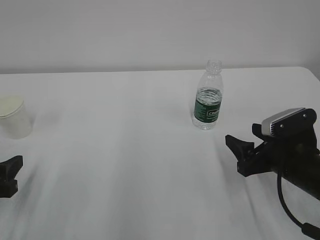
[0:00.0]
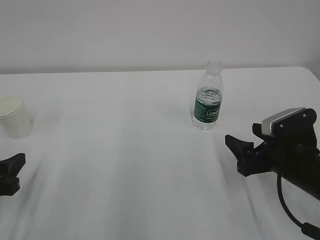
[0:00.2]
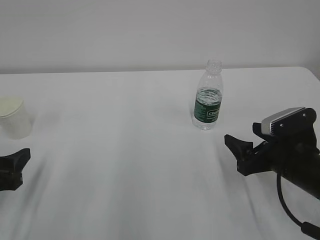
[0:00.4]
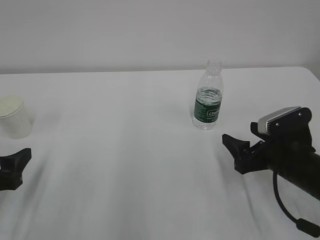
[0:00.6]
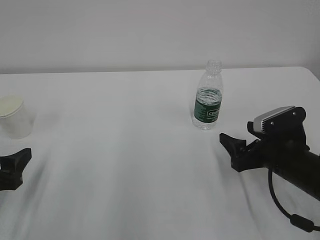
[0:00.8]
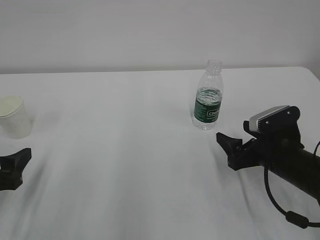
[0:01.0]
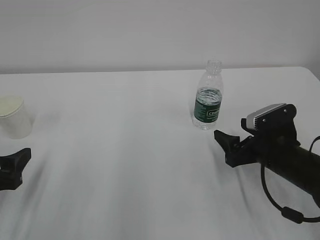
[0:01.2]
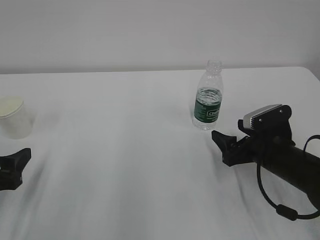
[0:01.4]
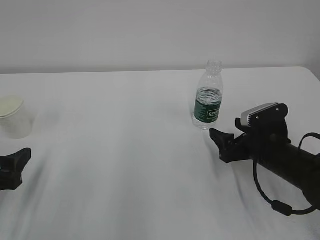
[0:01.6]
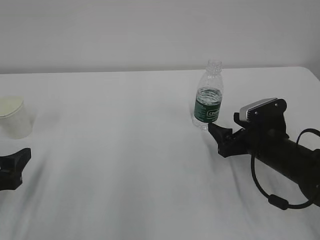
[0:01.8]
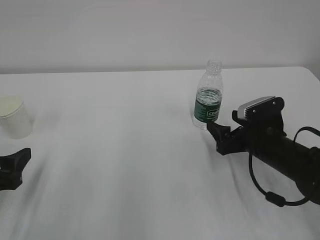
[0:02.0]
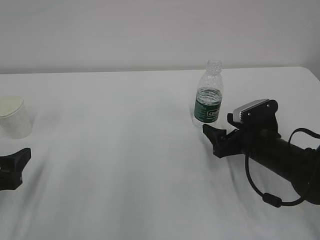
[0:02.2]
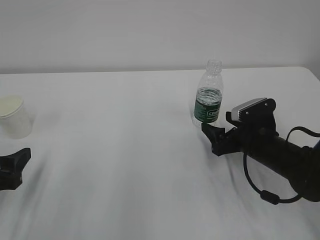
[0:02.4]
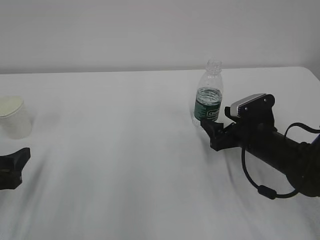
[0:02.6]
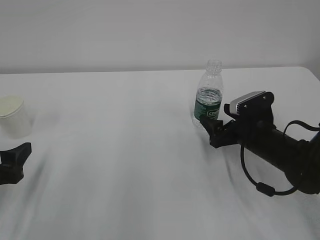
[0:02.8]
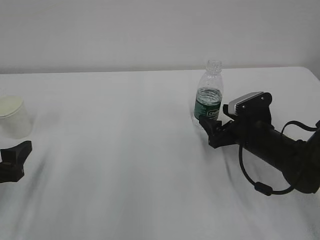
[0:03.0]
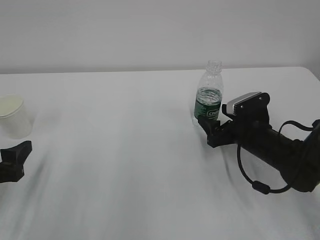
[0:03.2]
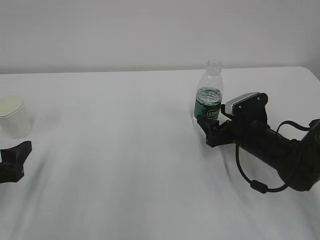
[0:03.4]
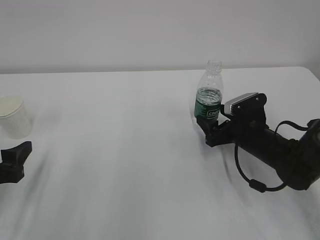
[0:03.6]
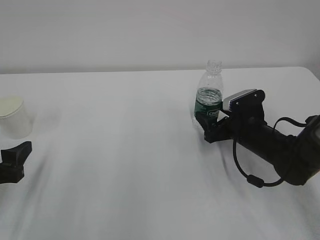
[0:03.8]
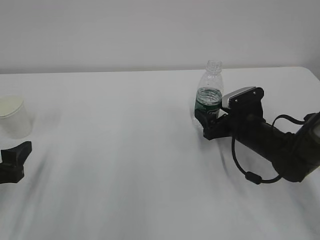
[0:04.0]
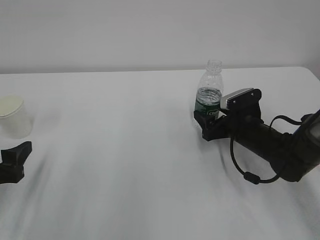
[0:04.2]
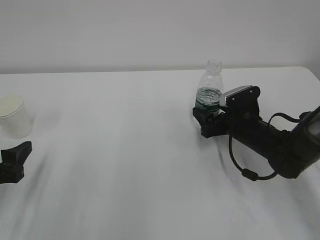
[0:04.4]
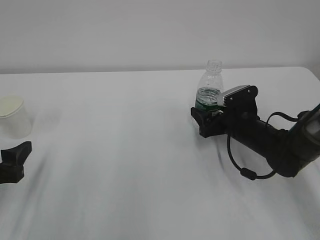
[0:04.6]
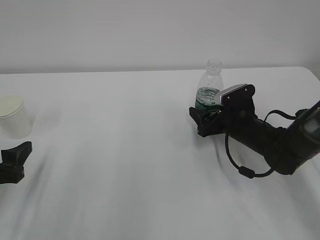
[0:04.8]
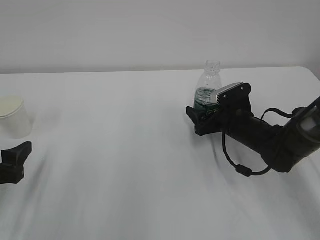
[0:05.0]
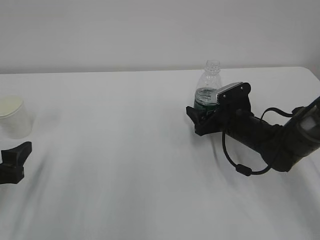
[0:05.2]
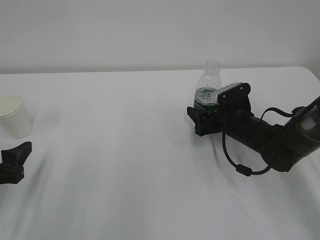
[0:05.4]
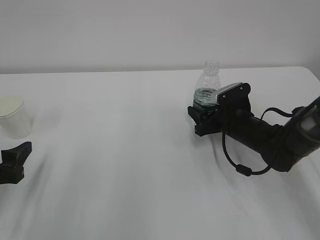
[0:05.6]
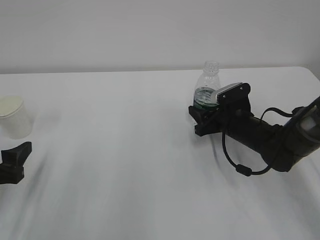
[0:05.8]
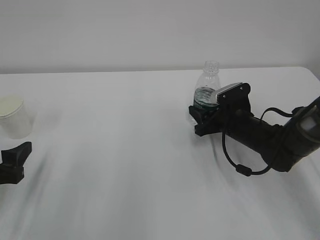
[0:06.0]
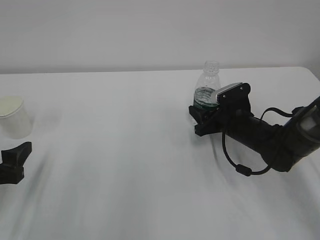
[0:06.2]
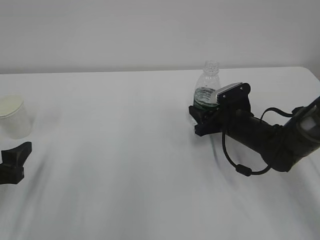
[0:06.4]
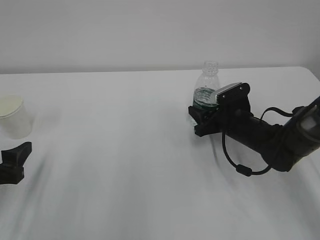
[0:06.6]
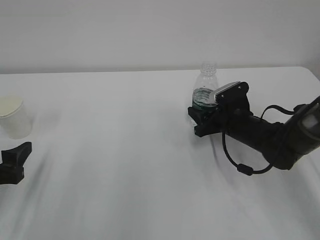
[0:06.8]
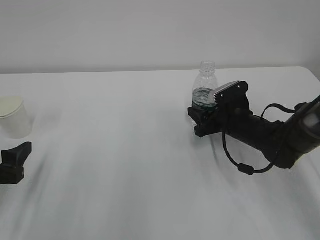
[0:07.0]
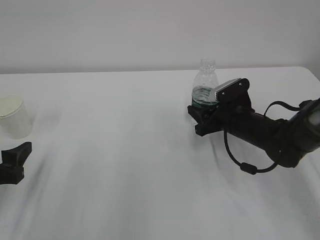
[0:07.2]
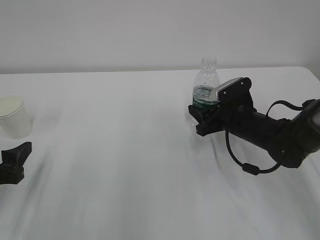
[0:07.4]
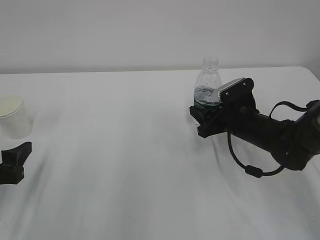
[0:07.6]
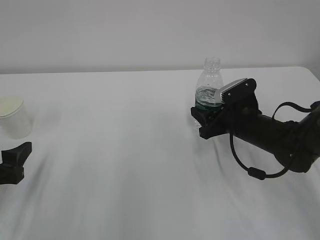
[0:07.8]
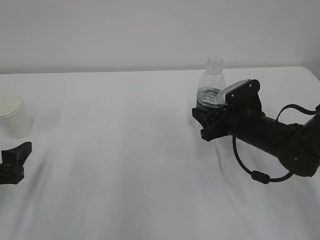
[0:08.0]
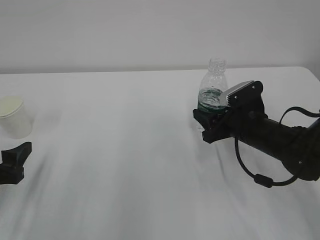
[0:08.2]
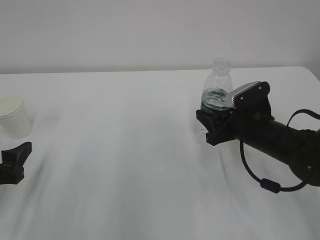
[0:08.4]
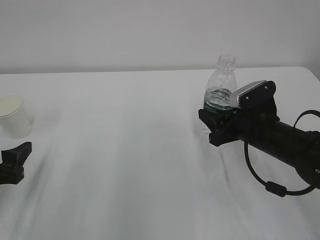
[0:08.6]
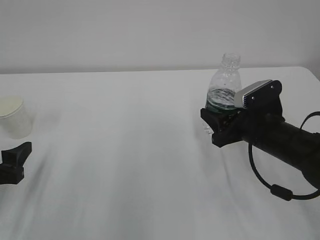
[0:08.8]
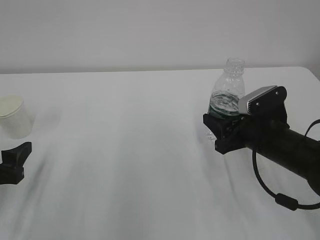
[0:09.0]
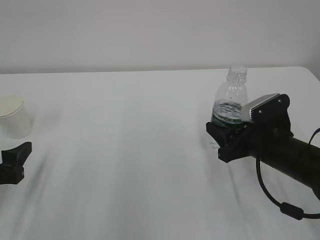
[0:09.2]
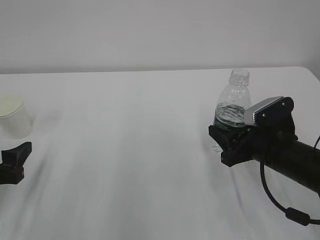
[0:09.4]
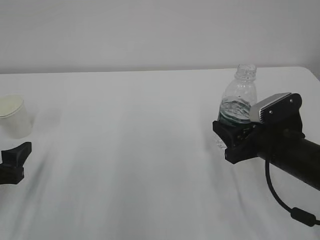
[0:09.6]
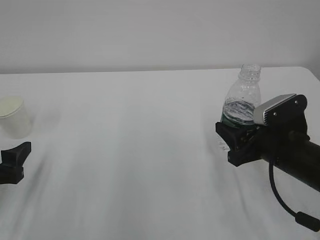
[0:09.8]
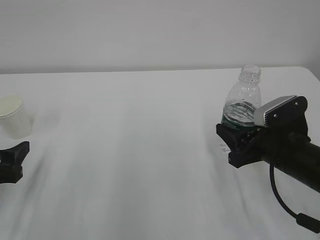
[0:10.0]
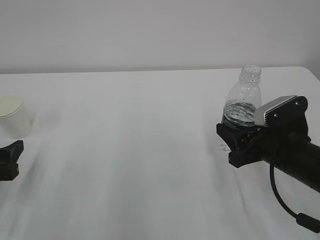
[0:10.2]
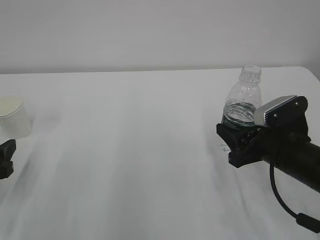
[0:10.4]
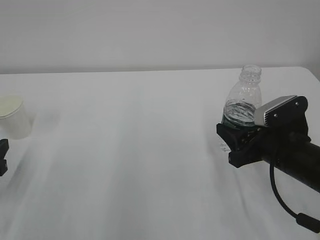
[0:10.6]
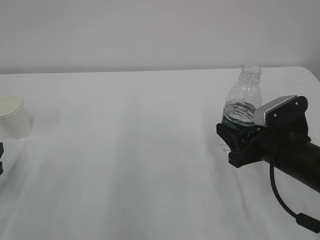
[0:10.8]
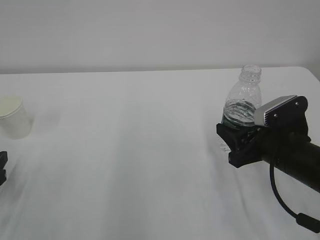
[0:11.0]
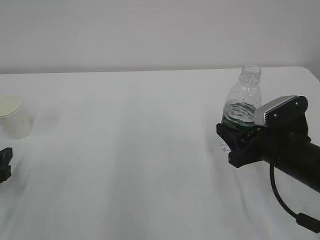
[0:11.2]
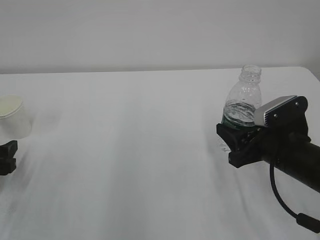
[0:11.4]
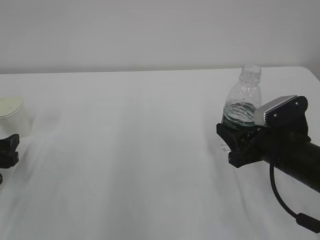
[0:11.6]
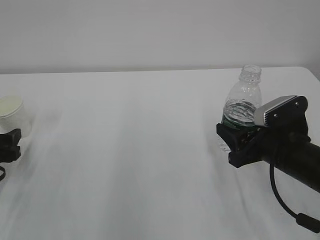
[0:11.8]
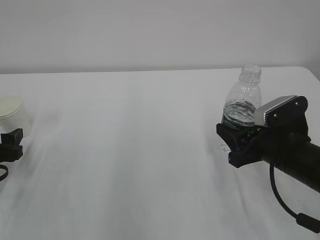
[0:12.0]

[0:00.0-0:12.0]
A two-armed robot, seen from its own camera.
0:00.0 to 0:01.6: The left gripper opens up; the right gripper moves about 5 cm.
0:01.6 to 0:03.0: The grippers make only small movements.
0:03.0 to 0:04.4: The grippers move only a little.
0:04.4 to 0:06.0: The right gripper closes its fingers.
0:06.0 to 0:07.6: The grippers make only small movements.
0:07.6 to 0:09.0: The right gripper goes some 5 cm backward.
0:09.0 to 0:10.4: The grippers move only a little.
0:10.4 to 0:12.0: The left gripper is displaced forward by some 5 cm.

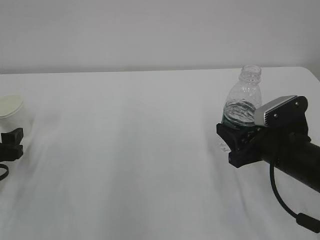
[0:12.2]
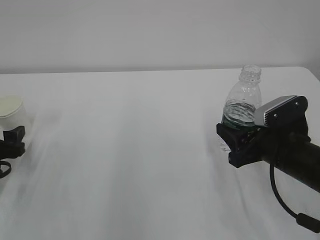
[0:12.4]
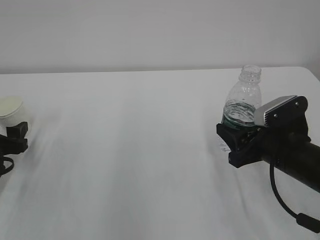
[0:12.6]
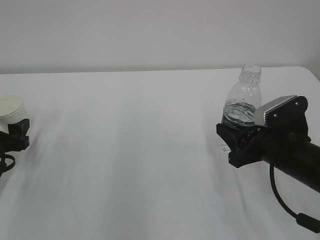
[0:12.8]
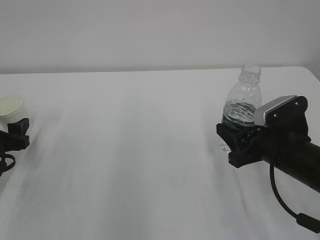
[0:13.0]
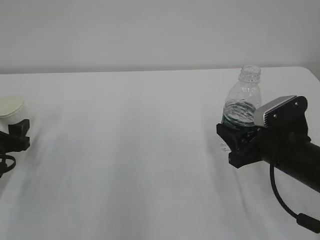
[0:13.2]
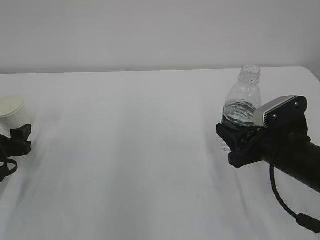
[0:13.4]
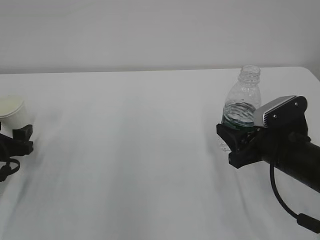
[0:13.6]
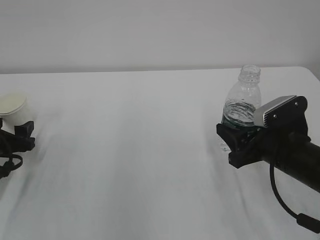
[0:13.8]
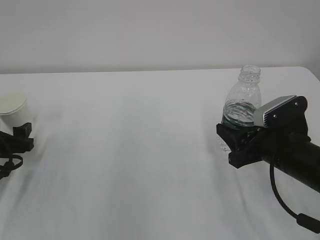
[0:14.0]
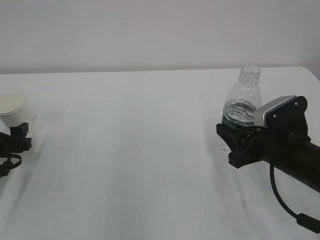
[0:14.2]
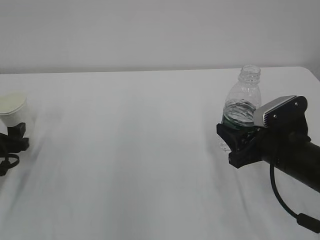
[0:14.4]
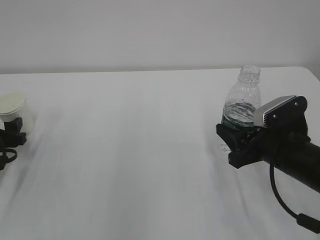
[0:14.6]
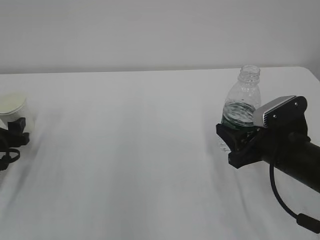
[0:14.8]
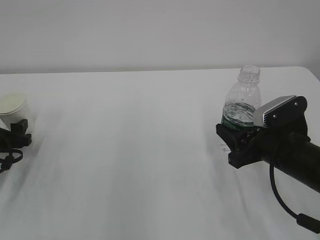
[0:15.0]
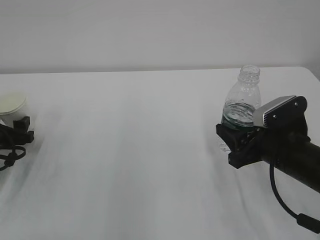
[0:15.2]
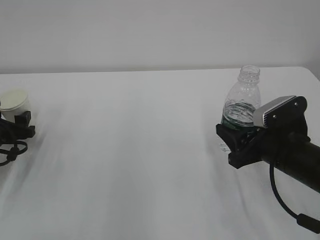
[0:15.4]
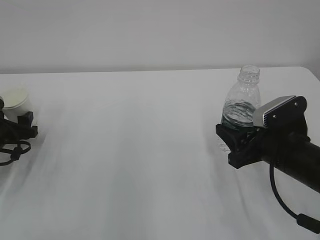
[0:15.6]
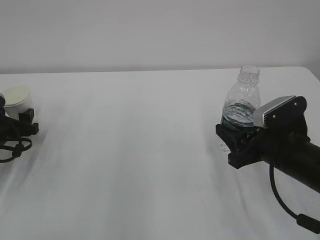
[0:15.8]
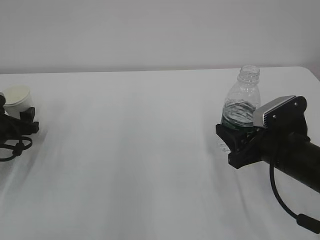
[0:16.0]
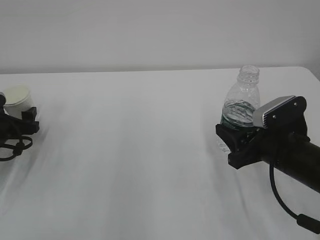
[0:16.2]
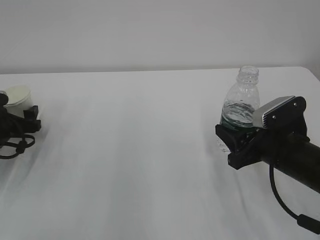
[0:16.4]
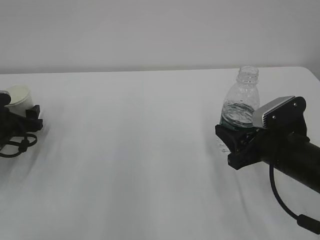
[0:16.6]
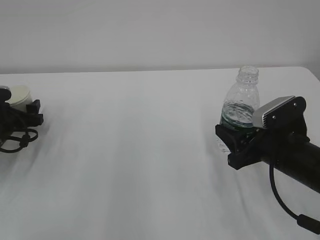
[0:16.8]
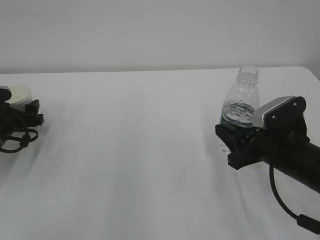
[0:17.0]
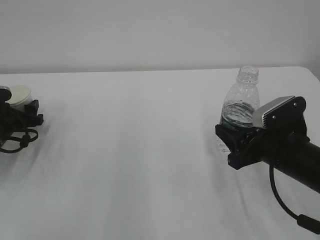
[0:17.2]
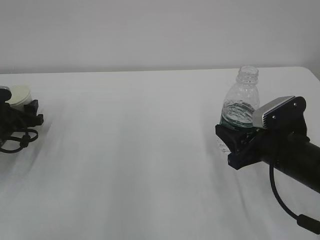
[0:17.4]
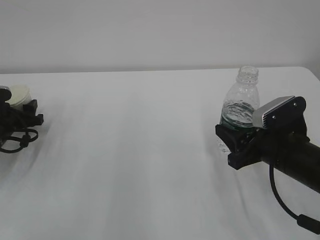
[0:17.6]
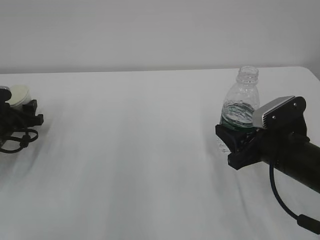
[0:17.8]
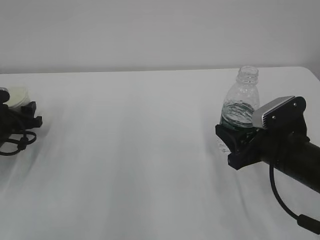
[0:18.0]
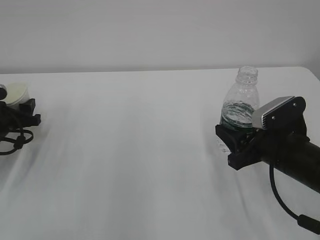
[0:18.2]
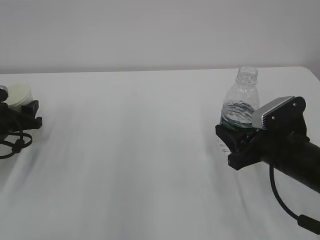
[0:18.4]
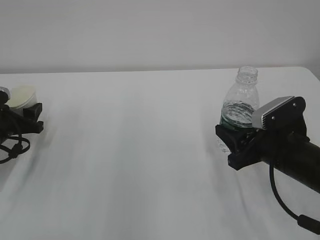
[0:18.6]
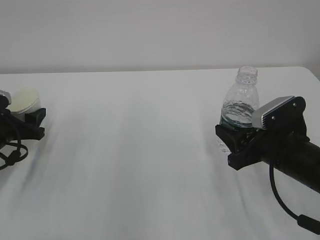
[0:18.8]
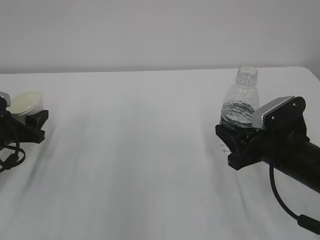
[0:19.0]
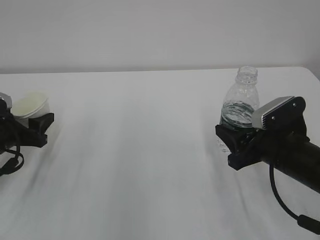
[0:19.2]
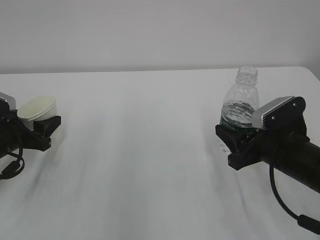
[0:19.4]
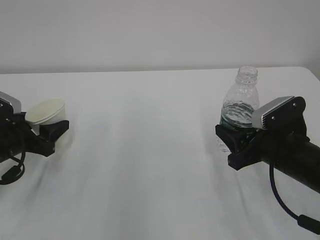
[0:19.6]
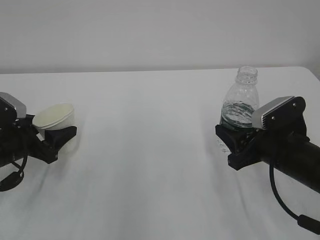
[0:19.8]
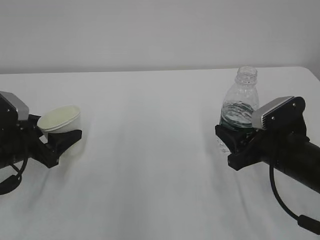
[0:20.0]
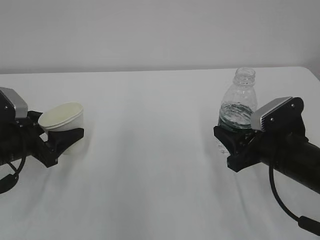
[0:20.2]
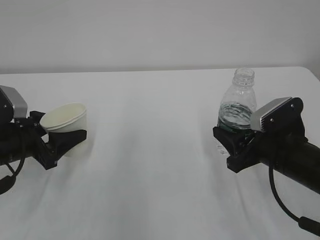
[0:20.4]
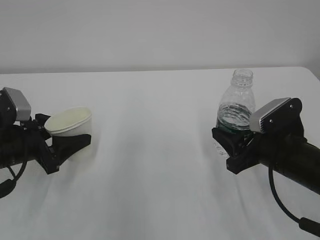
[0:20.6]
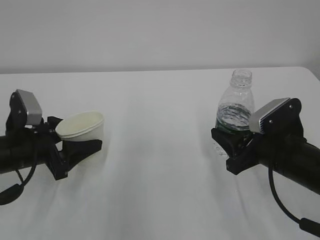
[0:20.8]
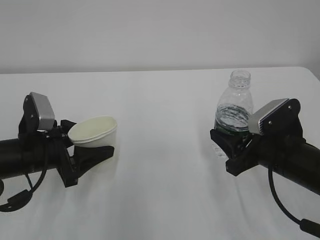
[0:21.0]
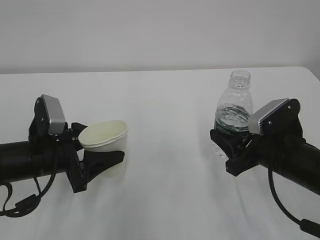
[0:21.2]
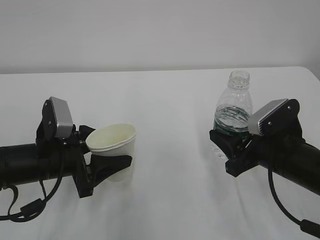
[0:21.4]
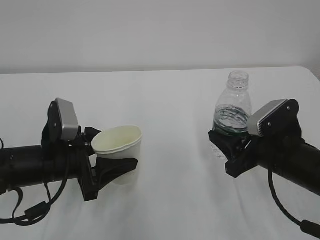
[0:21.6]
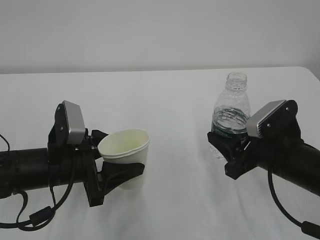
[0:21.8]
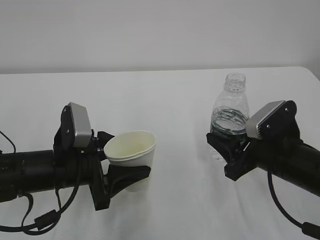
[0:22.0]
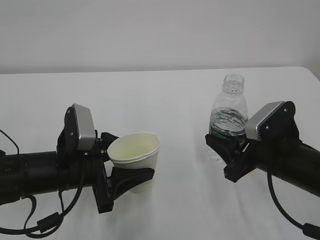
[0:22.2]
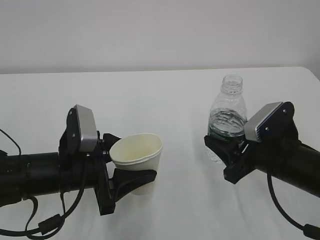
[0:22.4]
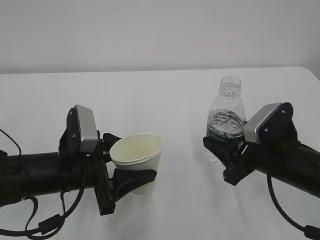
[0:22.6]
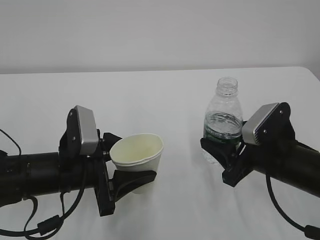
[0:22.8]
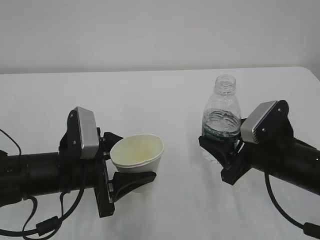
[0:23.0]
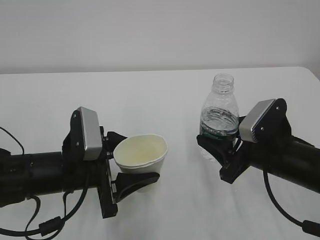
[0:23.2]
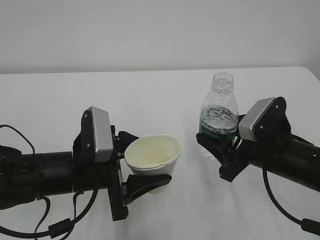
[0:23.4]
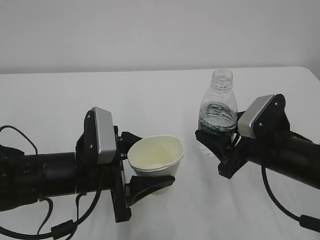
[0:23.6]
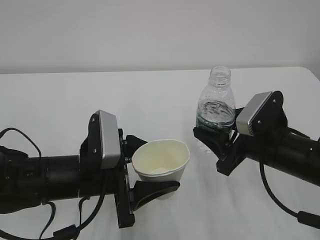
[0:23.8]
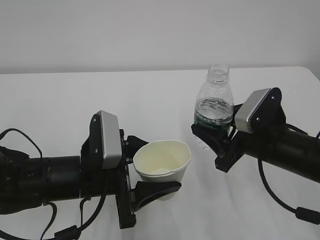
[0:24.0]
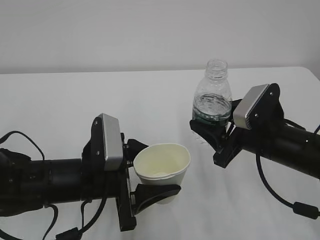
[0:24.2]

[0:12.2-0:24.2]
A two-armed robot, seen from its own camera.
0:12.2 to 0:13.8: There are only small adjustments of the grippers.
0:13.8 to 0:15.2: The grippers make only small movements.
0:15.2 to 0:16.6: The grippers make only small movements.
0:16.6 to 0:18.2: The left gripper closes up.
0:18.2 to 0:19.8: The left gripper goes about 10 cm backward and to the right.
0:19.8 to 0:21.2: The left gripper moves to the right, approximately 10 cm.
0:21.2 to 0:22.6: The left gripper travels to the right by approximately 5 cm.
